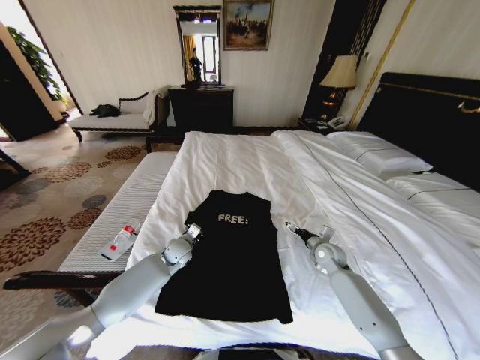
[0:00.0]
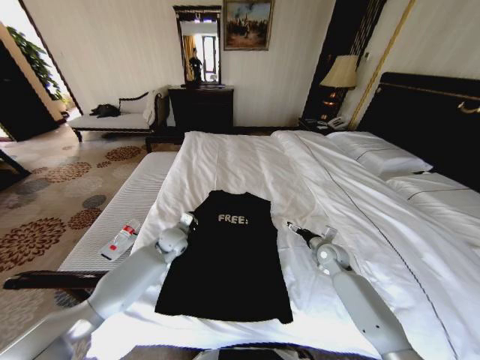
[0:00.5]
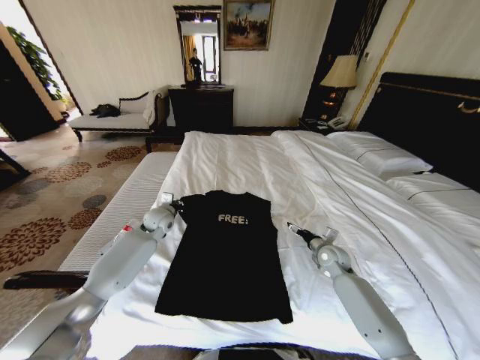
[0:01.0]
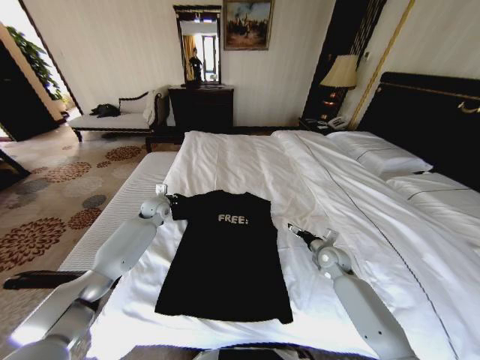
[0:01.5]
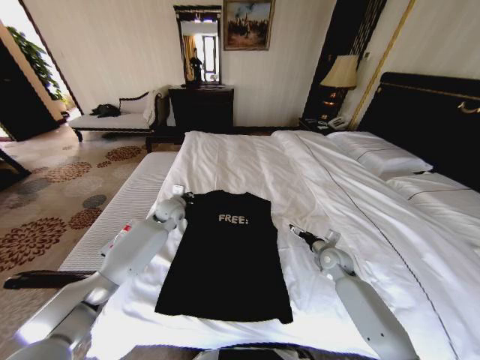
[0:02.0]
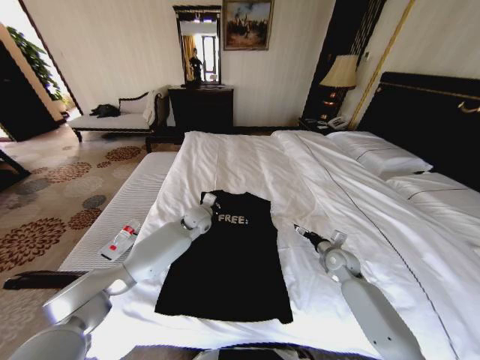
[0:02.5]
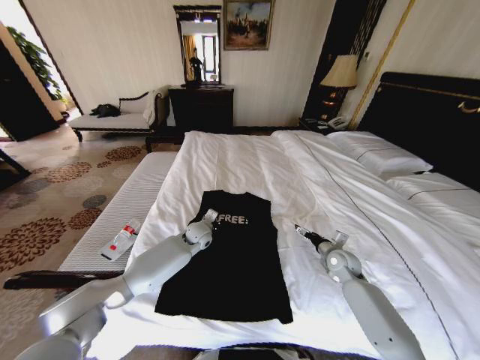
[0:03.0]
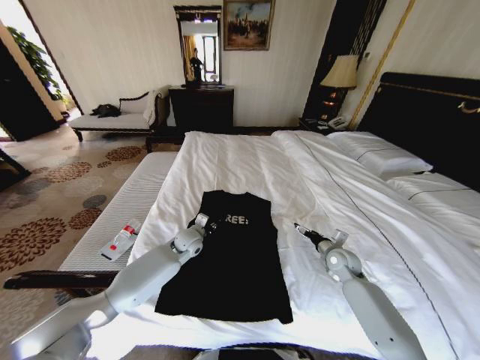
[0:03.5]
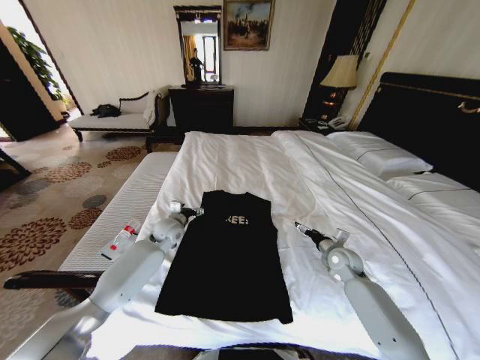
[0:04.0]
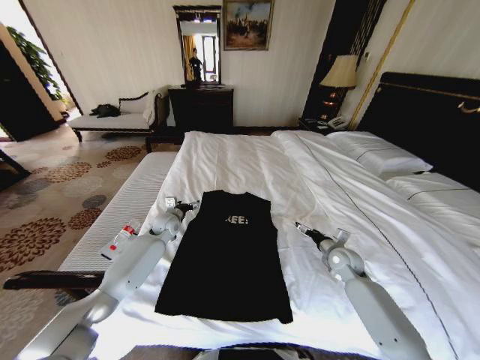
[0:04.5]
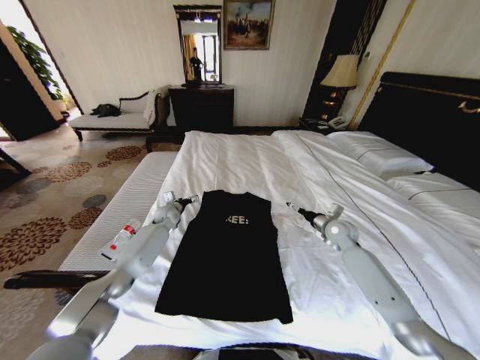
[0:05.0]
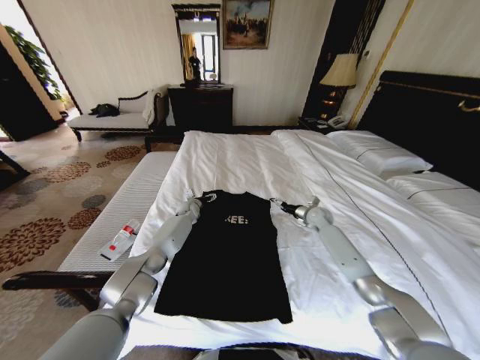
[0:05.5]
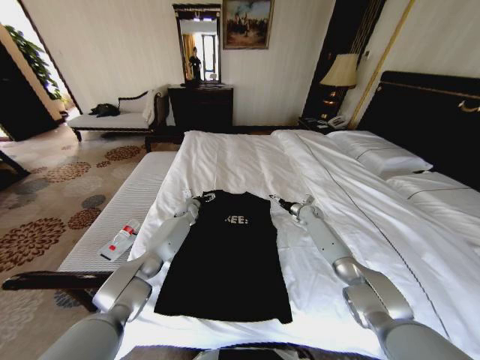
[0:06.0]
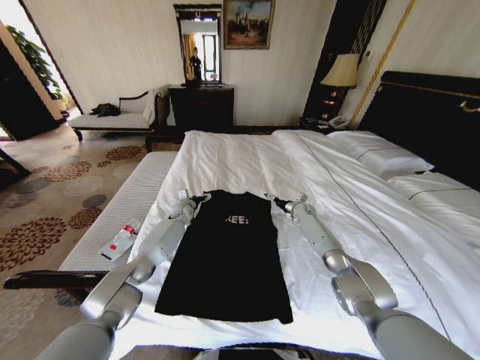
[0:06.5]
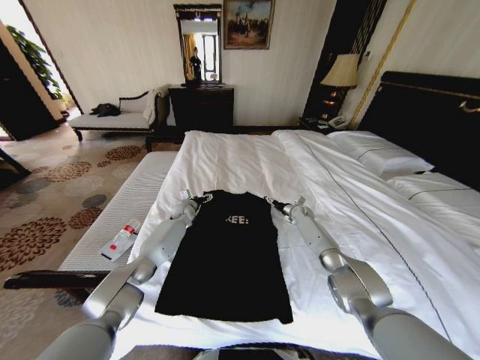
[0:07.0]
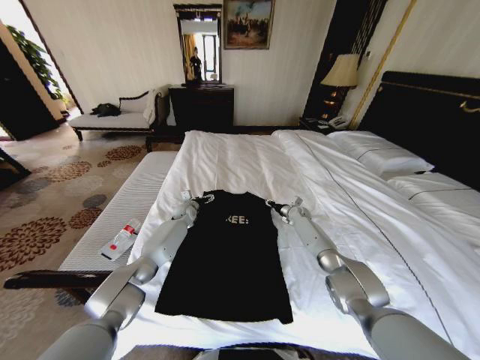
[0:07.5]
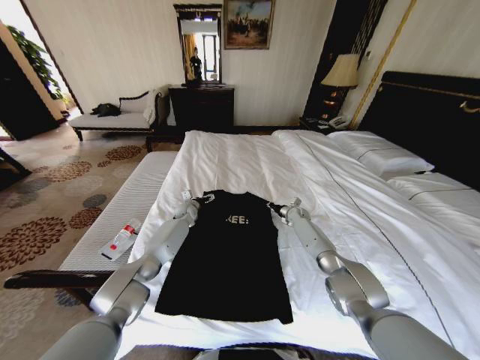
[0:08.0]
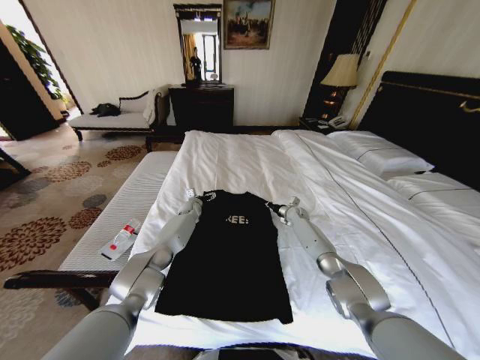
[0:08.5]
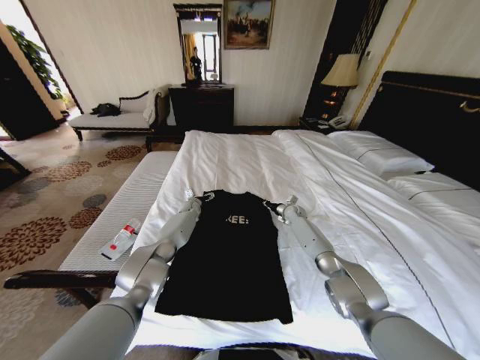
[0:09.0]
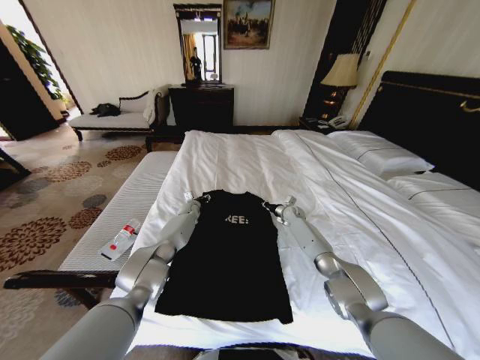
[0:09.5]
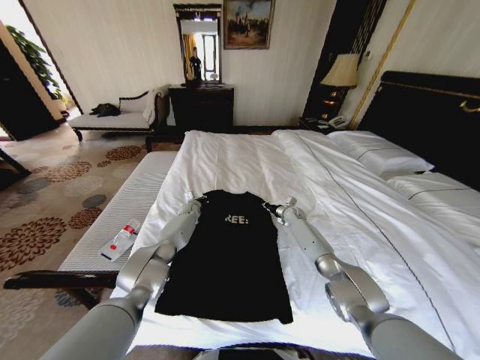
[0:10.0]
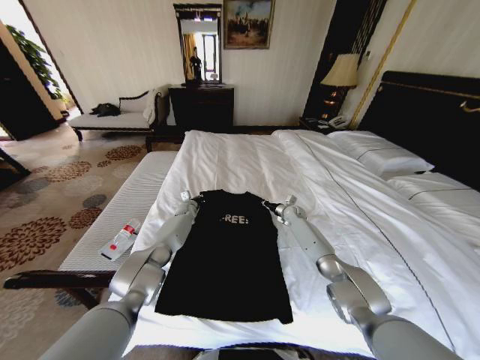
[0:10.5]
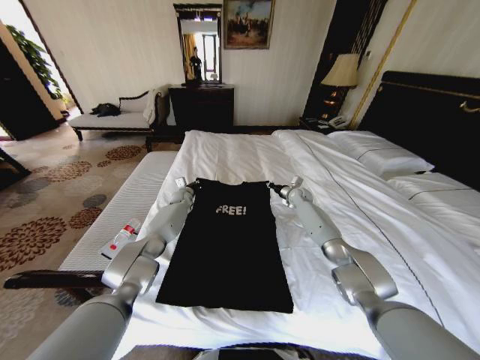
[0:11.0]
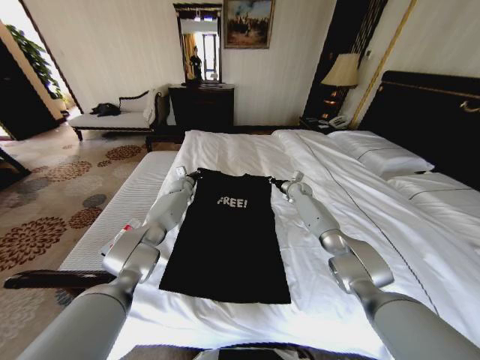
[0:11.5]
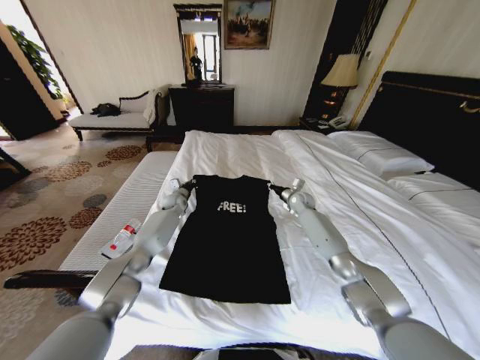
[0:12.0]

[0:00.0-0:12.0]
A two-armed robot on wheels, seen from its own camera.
Task of the whole recording: Fold the clothes on the bed.
0:00.0 to 0:02.0: The left gripper travels forward and upward by about 15 cm.
0:02.0 to 0:04.0: The left gripper heads backward, covering roughly 5 cm, travels to the right and back again, approximately 10 cm each way, and opens up.
0:04.0 to 0:06.0: The right gripper goes approximately 20 cm forward; the left gripper shifts some 15 cm forward and downward.
0:06.0 to 0:08.0: The right gripper moves some 5 cm, and closes its fingers.
0:08.0 to 0:10.0: The left gripper closes up.
0:10.0 to 0:12.0: The right gripper moves upward, some 10 cm. Meanwhile the left gripper moves upward and to the left, some 10 cm.

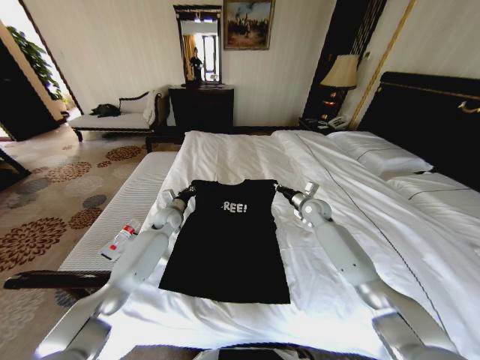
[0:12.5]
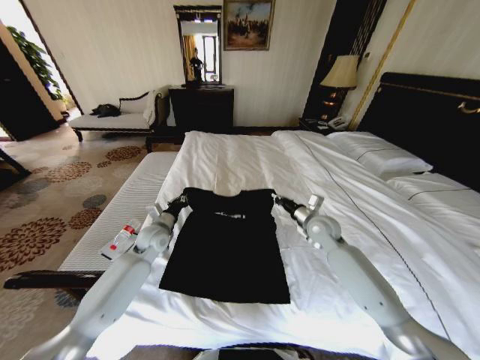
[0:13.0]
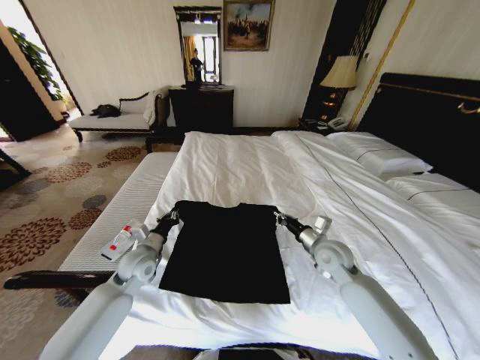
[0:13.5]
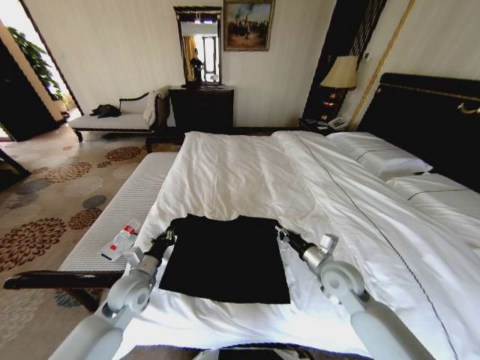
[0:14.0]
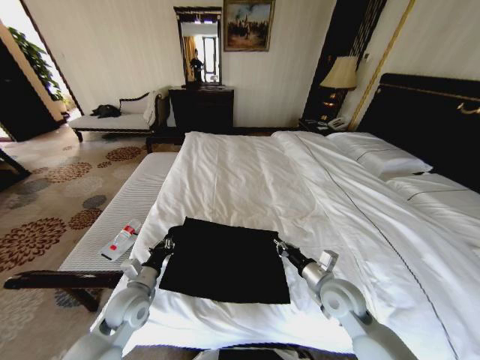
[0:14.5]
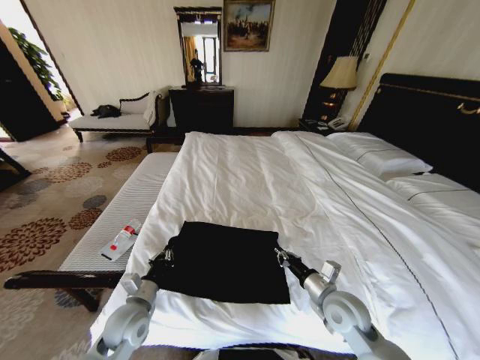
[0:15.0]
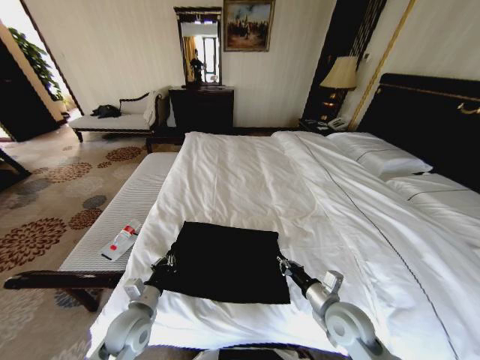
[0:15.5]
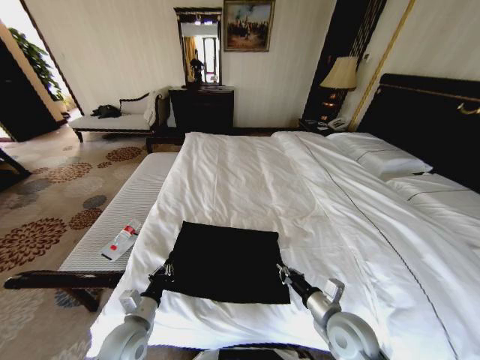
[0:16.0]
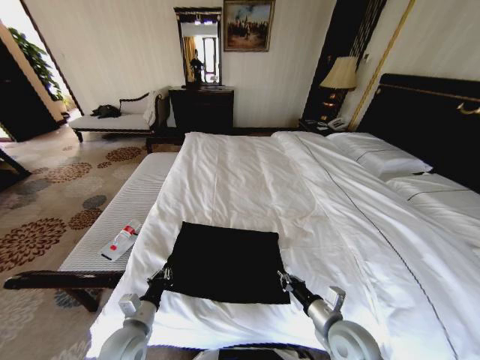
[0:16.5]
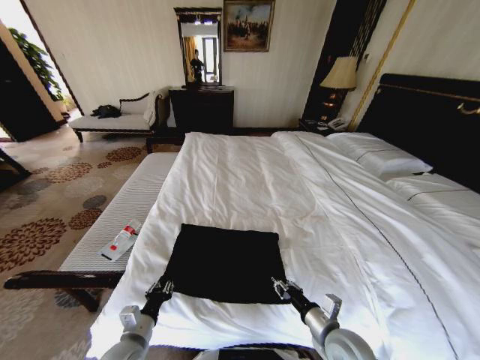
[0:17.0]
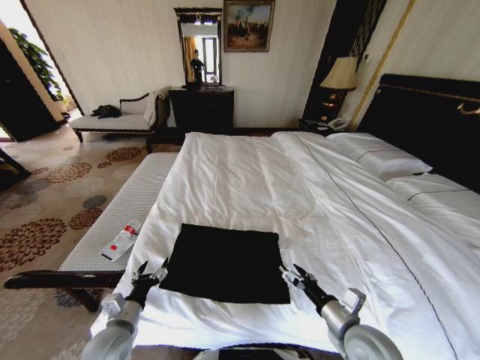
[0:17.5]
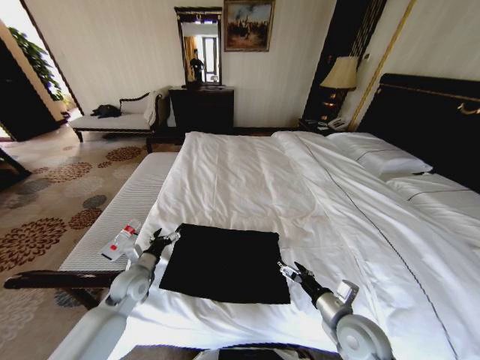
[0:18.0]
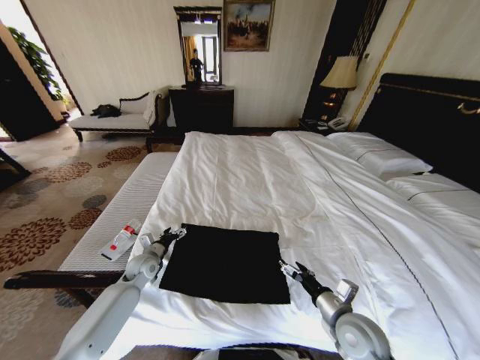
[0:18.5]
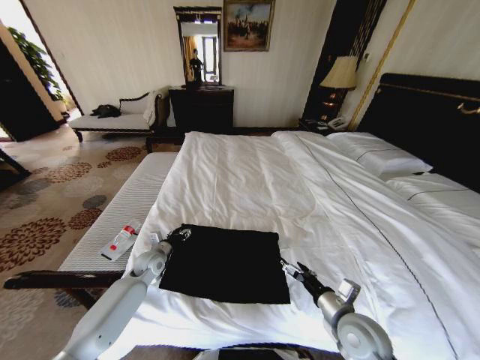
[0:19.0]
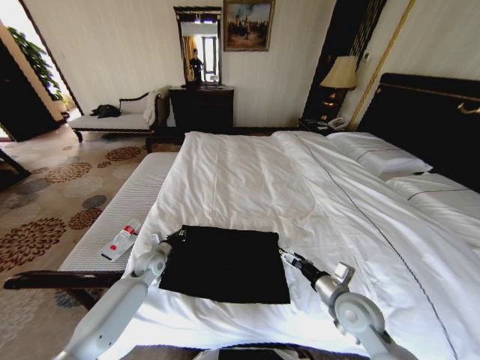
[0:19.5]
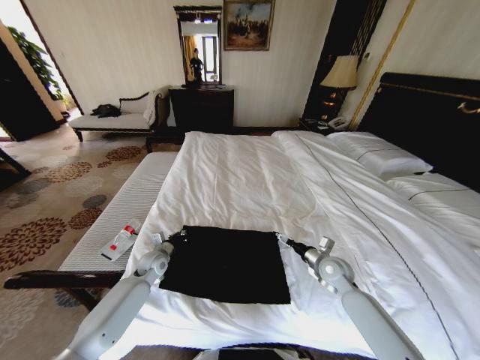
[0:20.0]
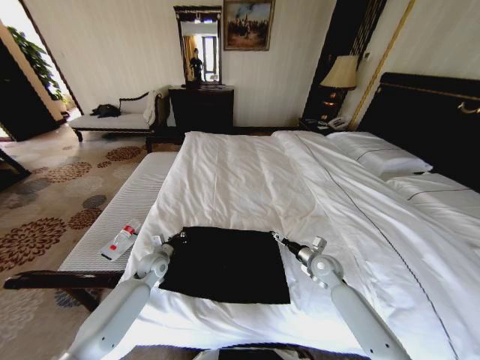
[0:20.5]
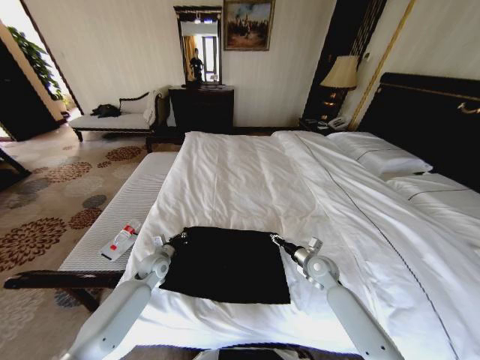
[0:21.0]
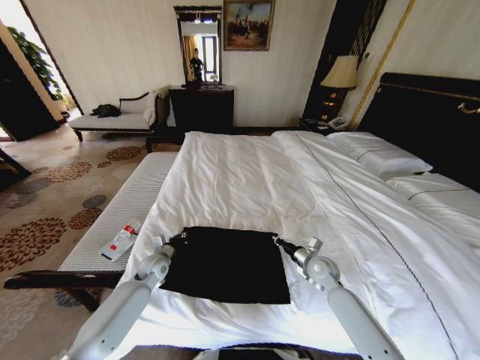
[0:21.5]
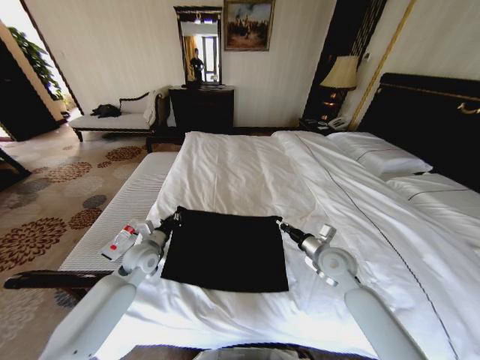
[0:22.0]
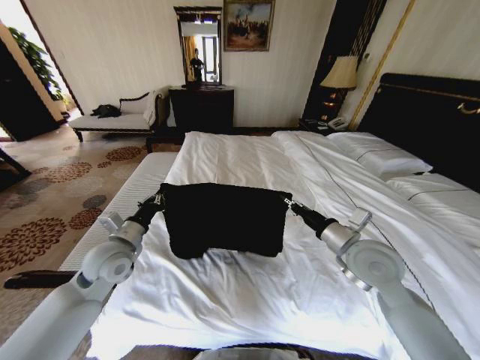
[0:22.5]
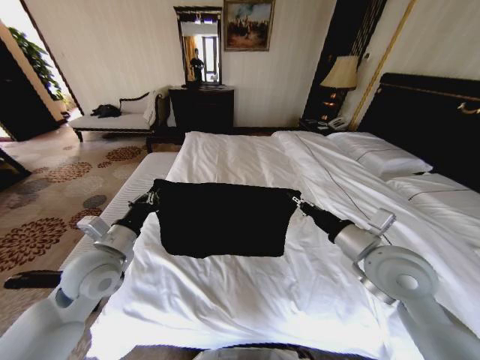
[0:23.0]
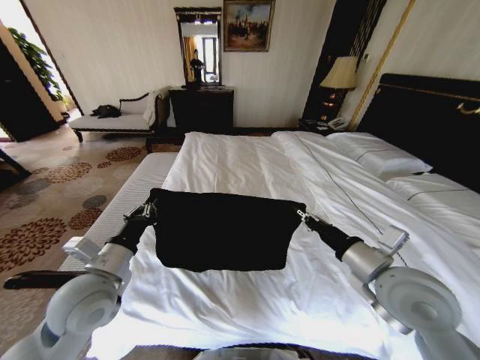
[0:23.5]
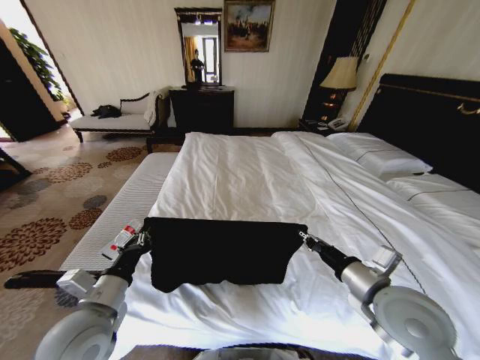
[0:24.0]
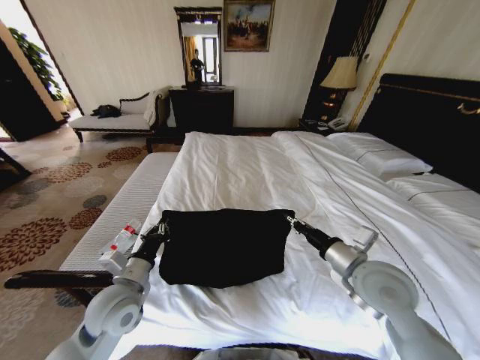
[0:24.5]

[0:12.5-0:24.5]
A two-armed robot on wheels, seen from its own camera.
Task of the whole recording: Fold the clothes on the bed.
0:12.5 to 0:14.5: Both grippers travel together backward, some 30 cm.
0:14.5 to 0:16.5: The grippers both shift backward by approximately 10 cm.
0:16.5 to 0:18.5: The left gripper shifts roughly 20 cm forward, and opens up. The right gripper opens its fingers.
0:18.5 to 0:20.5: The left gripper closes up; the right gripper travels forward by about 20 cm.
0:20.5 to 0:22.5: Both grippers move upward, some 20 cm. The right gripper closes up.
0:22.5 to 0:24.5: The left gripper is displaced backward by about 10 cm.

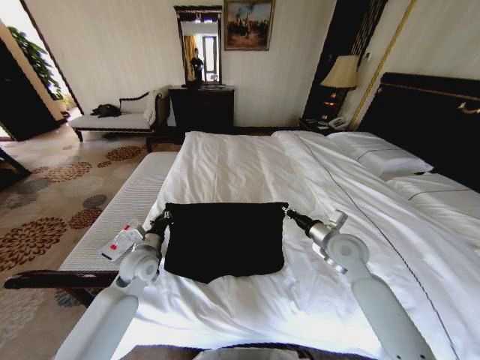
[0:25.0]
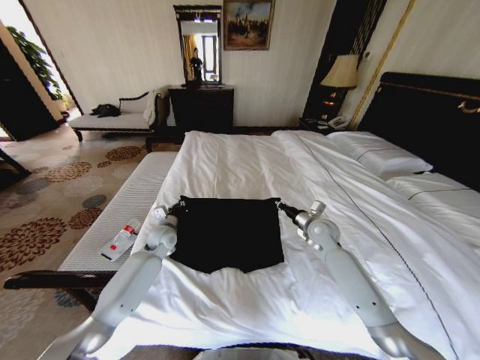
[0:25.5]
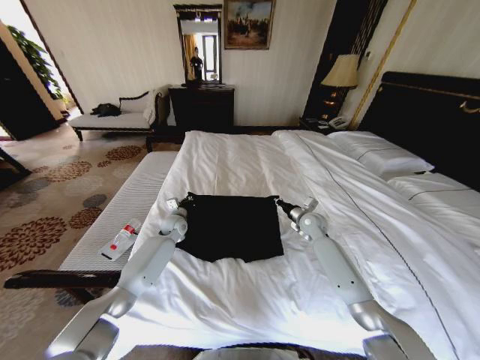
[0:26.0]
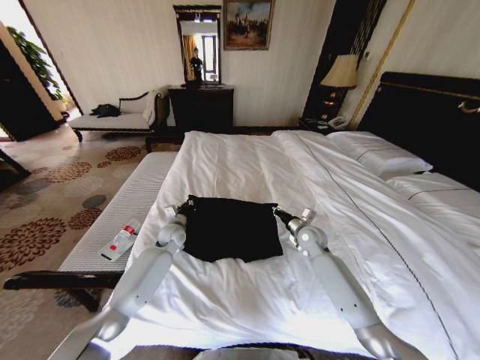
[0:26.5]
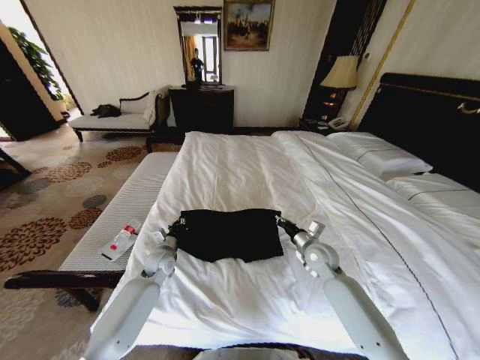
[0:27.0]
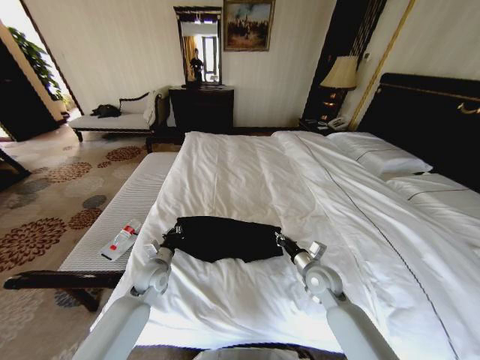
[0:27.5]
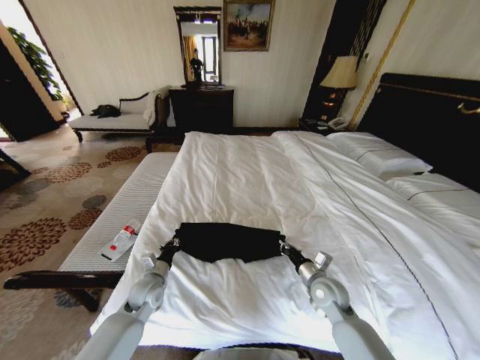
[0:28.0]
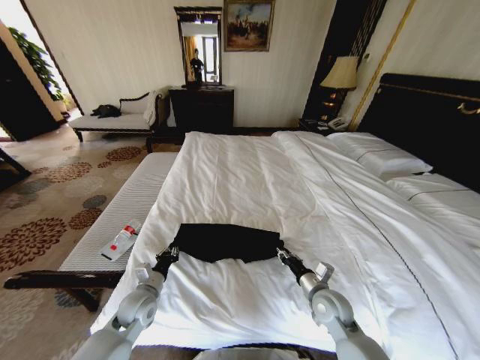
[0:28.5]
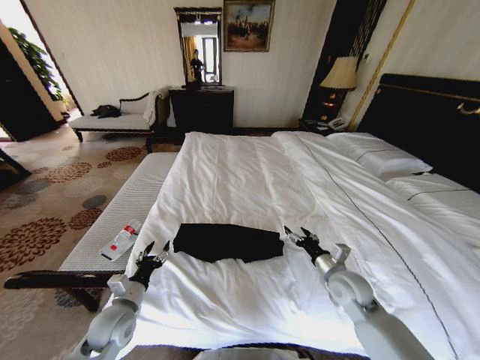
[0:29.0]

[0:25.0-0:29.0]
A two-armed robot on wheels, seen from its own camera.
Task of the whole recording: Fold the clothes on the bed.
0:25.0 to 0:27.0: Both grippers move downward, roughly 10 cm. The left gripper moves approximately 20 cm forward and comes back. The right gripper goes forward and returns, approximately 15 cm each way.
0:27.0 to 0:29.0: The right gripper travels backward by approximately 10 cm, and opens; the left gripper shifts approximately 20 cm backward, and opens up.
